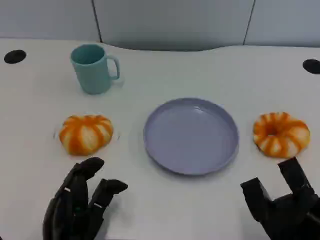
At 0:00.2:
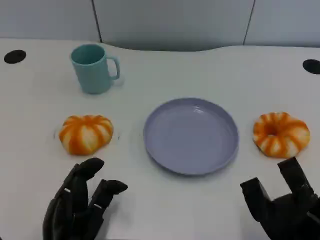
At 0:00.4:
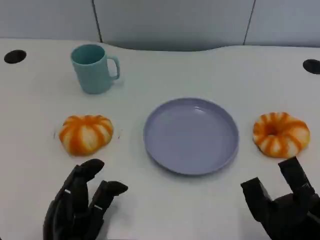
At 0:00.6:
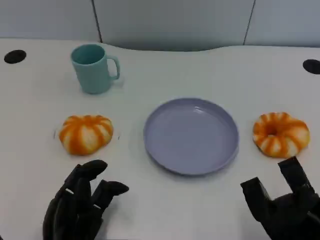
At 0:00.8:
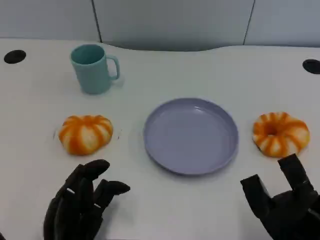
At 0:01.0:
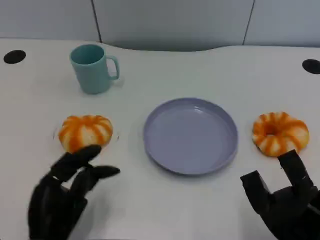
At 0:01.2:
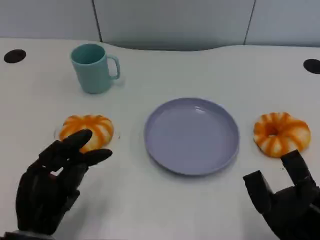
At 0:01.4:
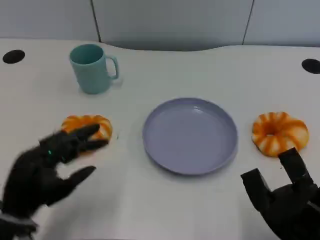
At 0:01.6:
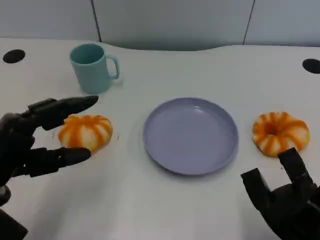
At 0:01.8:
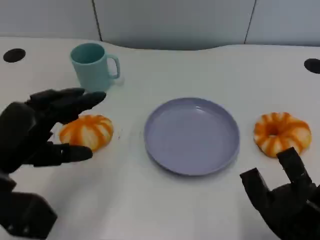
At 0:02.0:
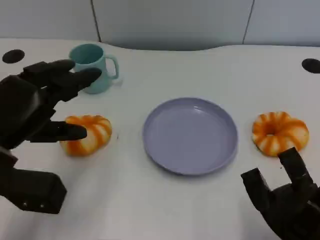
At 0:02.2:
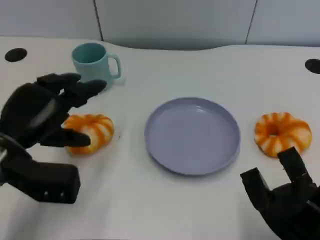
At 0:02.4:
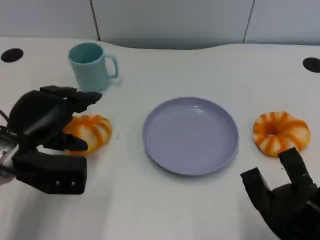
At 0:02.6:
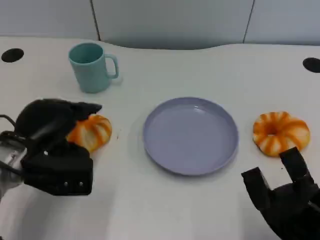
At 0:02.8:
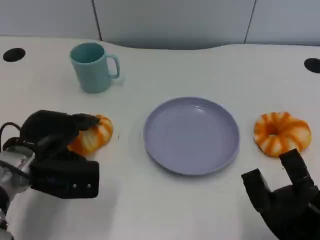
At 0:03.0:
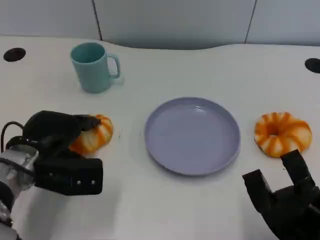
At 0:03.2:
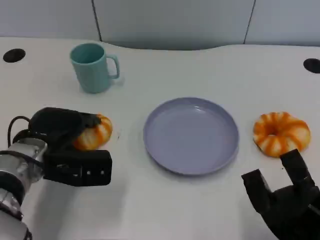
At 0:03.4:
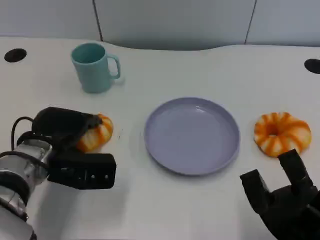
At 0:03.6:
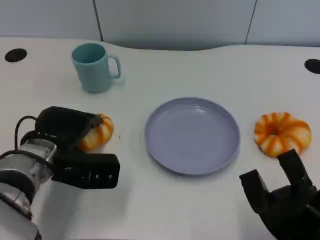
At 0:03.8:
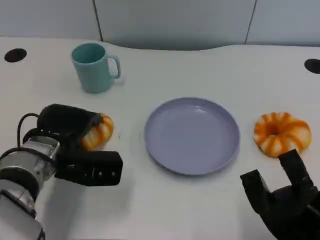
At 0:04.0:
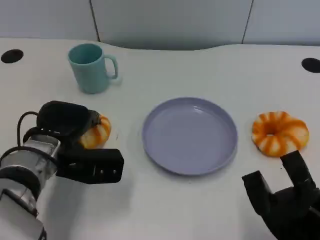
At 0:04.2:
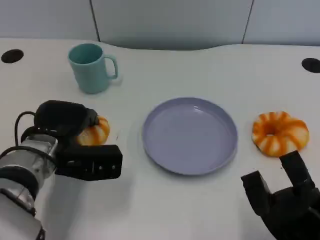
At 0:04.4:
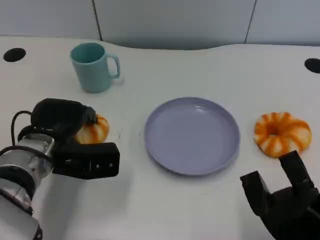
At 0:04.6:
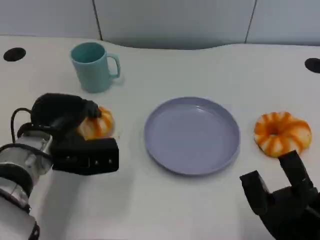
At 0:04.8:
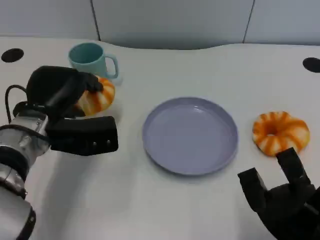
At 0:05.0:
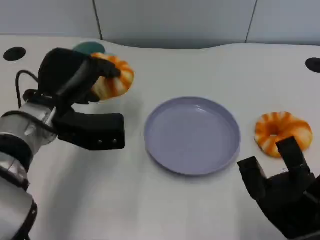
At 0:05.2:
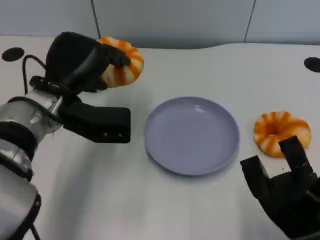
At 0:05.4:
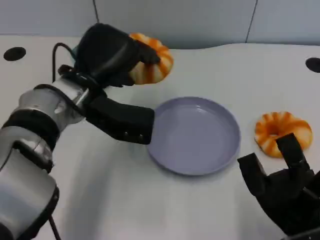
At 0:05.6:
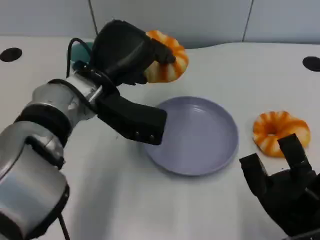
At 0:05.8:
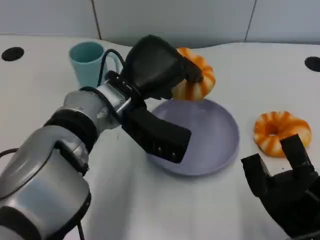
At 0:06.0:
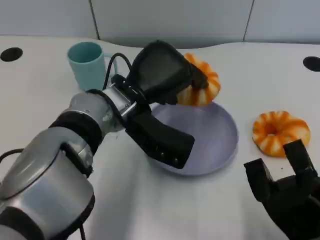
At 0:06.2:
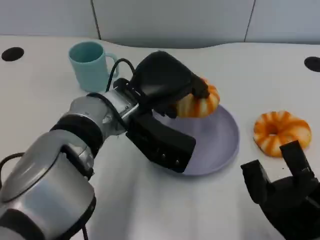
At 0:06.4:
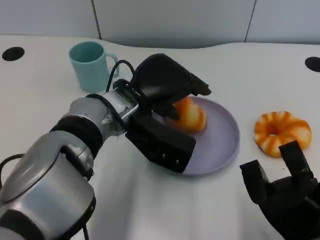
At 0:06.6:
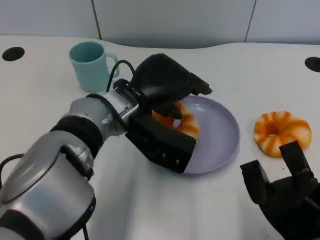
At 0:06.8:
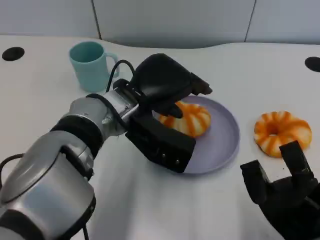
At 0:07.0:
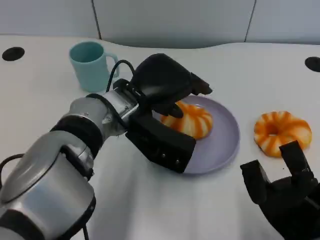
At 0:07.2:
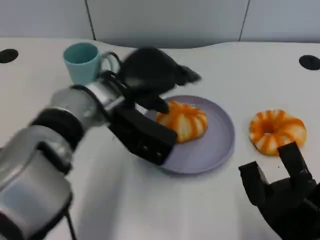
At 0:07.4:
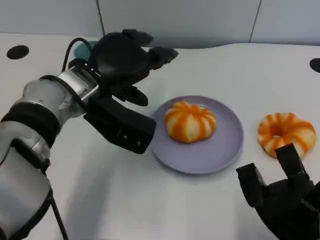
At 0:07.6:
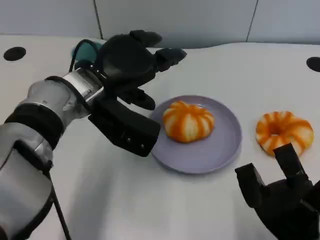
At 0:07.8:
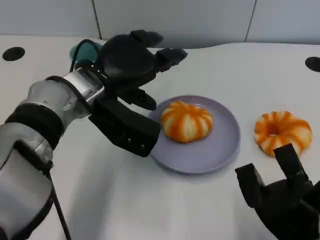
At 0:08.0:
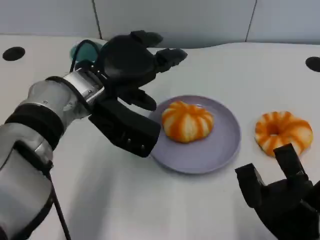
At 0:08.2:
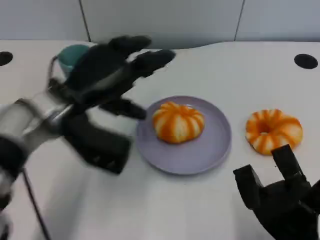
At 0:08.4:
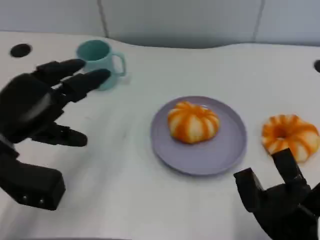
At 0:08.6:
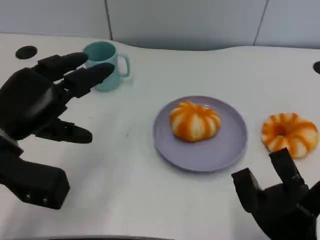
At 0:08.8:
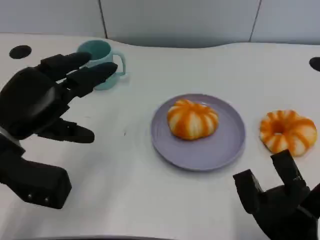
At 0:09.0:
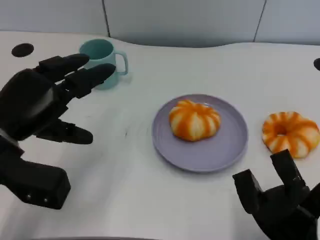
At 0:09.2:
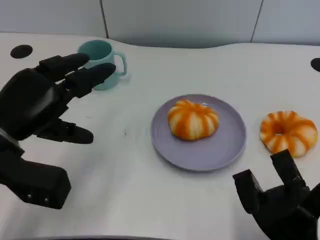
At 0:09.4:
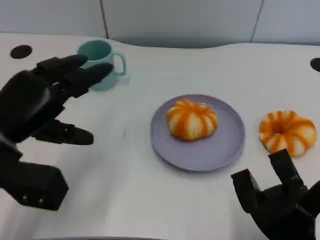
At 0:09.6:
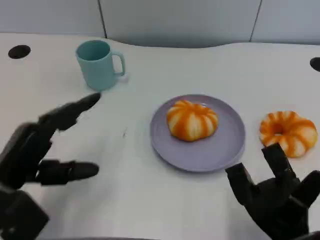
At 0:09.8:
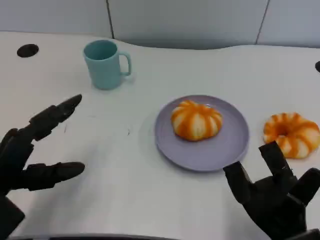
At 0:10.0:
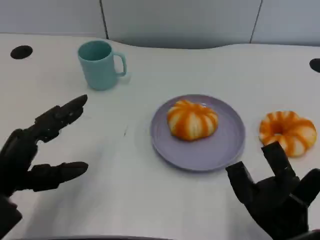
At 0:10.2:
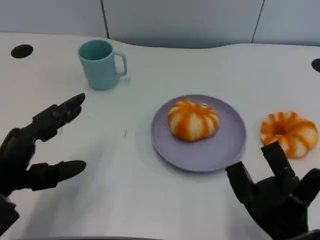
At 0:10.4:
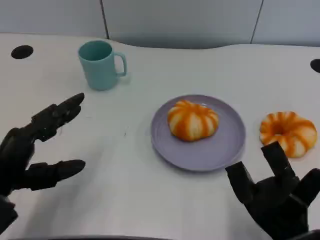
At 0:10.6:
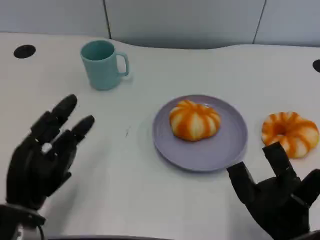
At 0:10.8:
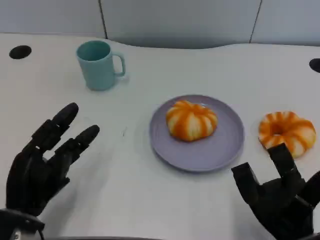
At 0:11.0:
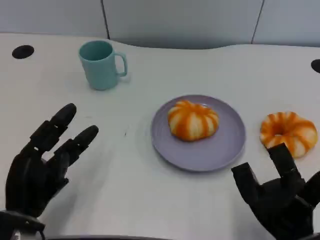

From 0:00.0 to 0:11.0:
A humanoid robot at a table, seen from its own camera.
Task of the whole recording: Grasp the bread from the table and place it into the plate.
From 0:00.0 to 0:01.6: The left hand heads upward, to the left and forward, covering approximately 15 cm.
From 0:01.6 to 0:03.2: The left hand heads forward and to the right, covering some 10 cm.
From 0:04.8 to 0:06.2: The left hand moves to the right, approximately 10 cm.
From 0:06.2 to 0:07.8: The left hand moves some 5 cm.
From 0:07.8 to 0:09.4: The left hand is displaced to the left and backward by about 15 cm.
From 0:09.4 to 0:11.0: The left hand shifts some 10 cm downward and backward.

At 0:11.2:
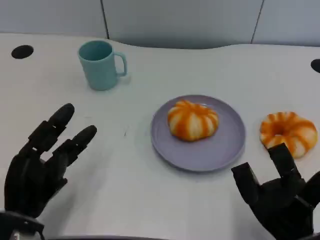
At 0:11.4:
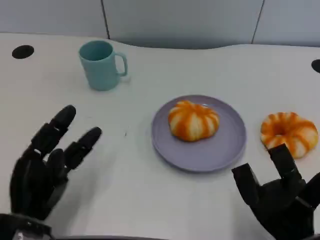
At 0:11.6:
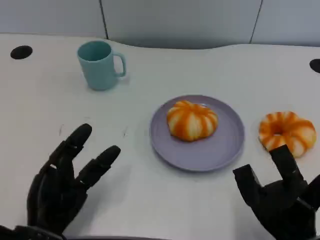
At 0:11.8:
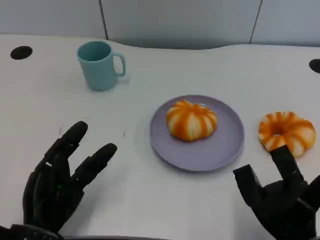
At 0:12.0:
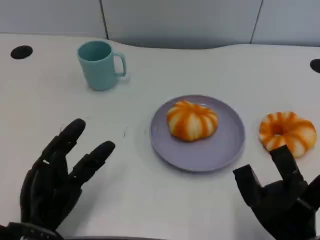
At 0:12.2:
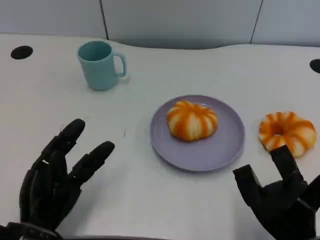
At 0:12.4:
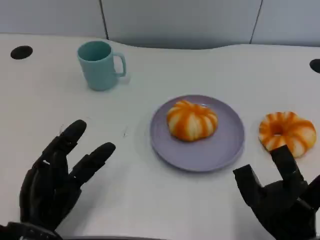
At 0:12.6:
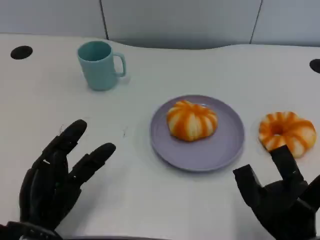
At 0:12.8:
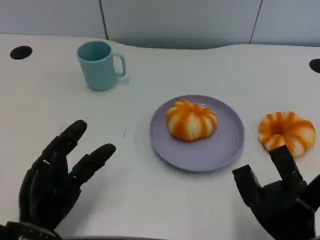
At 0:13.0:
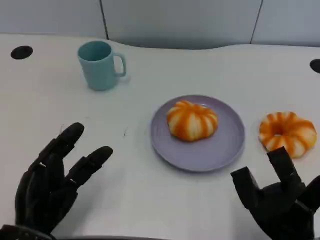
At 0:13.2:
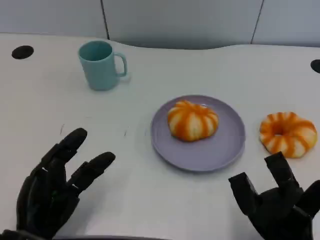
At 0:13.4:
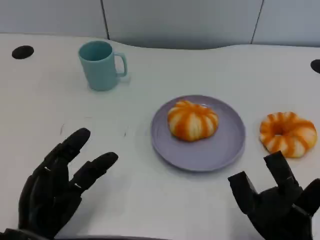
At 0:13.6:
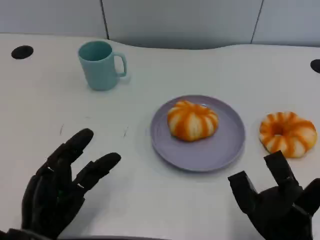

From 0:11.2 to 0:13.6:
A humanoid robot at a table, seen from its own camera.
Task of the whole recording: Grasp the bread from the table and place it into the plate.
From 0:12.4 to 0:13.6: The two hands keep their place.
